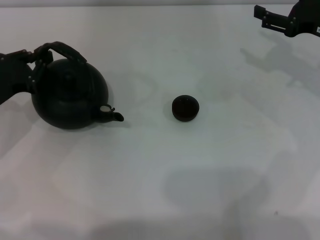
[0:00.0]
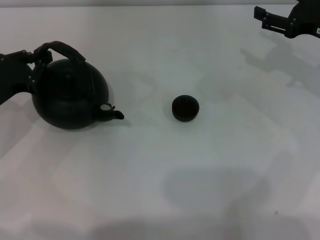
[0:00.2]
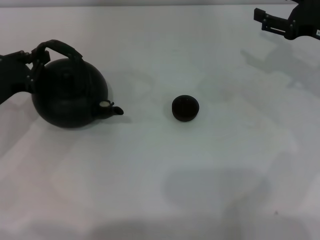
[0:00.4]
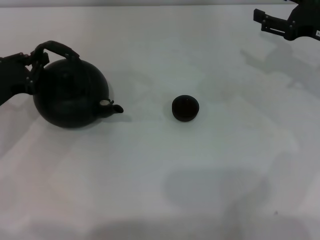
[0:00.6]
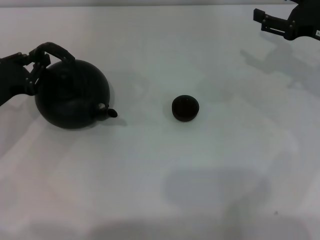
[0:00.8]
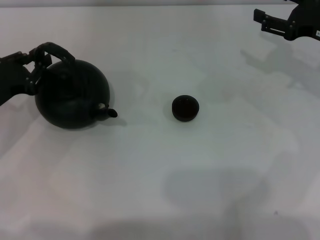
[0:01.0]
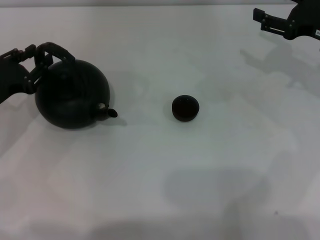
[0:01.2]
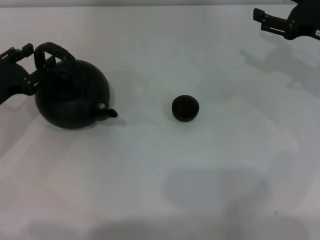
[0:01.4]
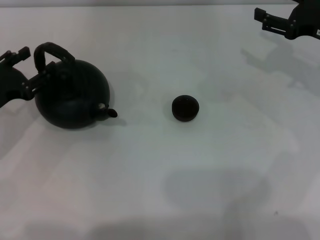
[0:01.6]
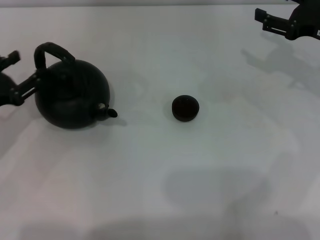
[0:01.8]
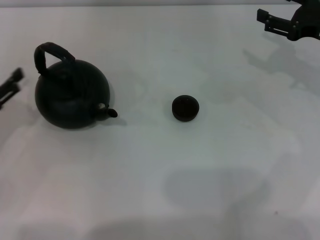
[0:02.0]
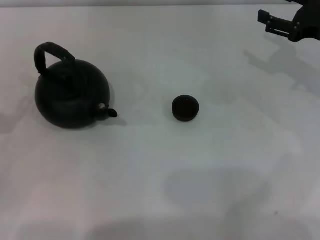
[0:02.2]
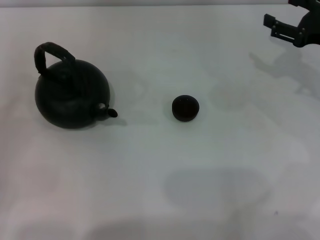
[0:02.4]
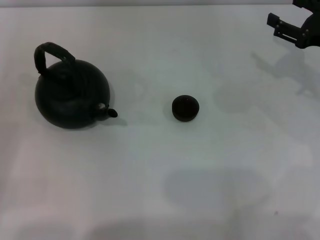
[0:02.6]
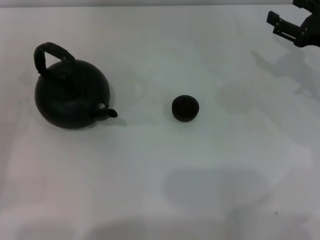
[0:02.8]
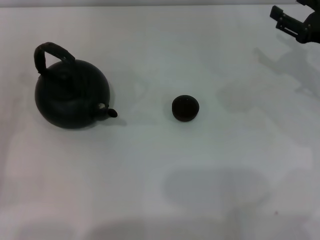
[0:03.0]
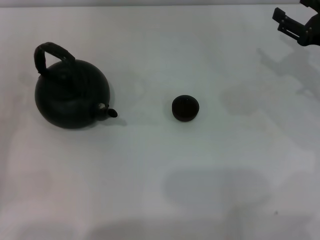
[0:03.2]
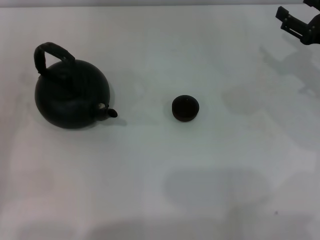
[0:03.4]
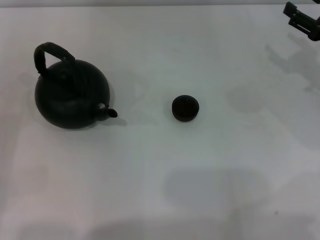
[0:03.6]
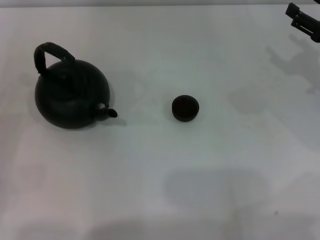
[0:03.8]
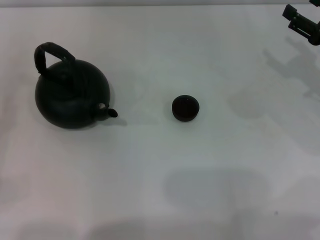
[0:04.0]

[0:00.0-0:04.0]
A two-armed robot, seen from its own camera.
Task of the whole recording: Grasp the handle of the teapot with one hand and pour tea into the teacup.
0:00.0 to 0:01.4: The left gripper opens.
0:01.4 to 0:02.6: The left gripper goes roughly 15 cm backward and to the left, and opens up.
0:02.6 to 0:04.0: The grippers make only small movements.

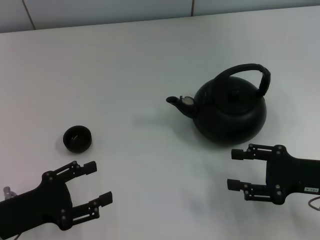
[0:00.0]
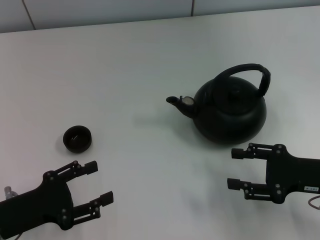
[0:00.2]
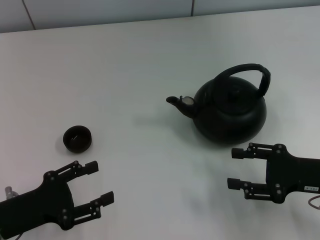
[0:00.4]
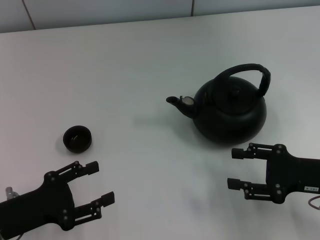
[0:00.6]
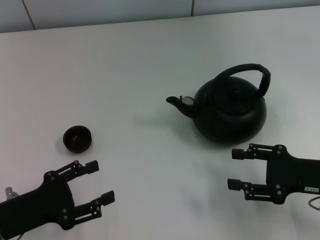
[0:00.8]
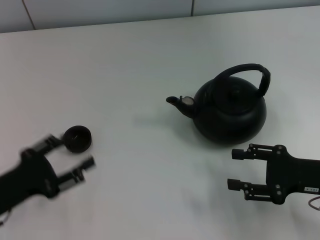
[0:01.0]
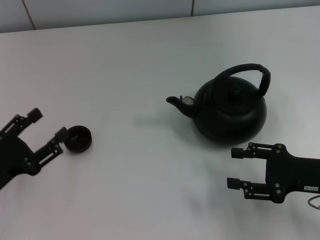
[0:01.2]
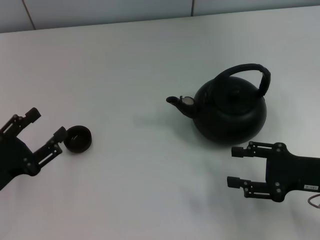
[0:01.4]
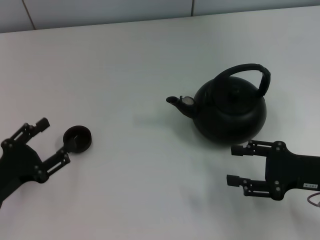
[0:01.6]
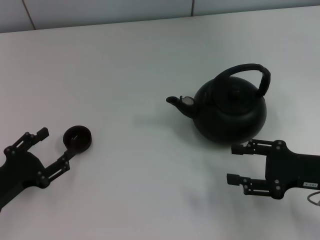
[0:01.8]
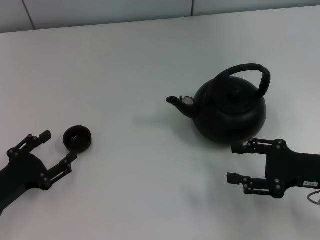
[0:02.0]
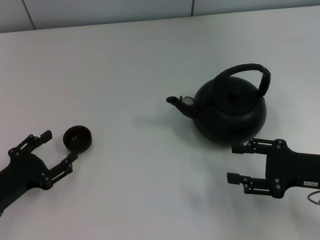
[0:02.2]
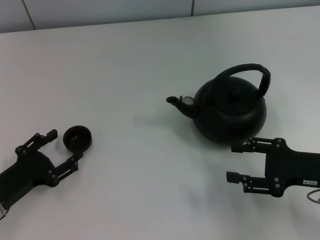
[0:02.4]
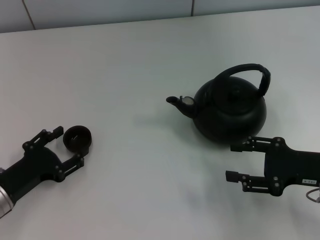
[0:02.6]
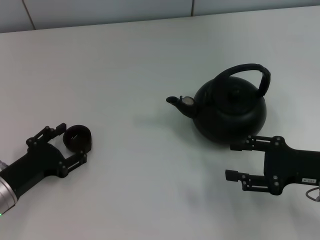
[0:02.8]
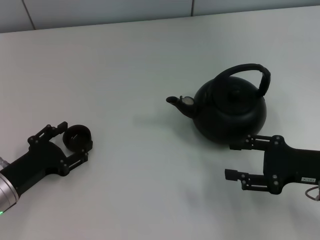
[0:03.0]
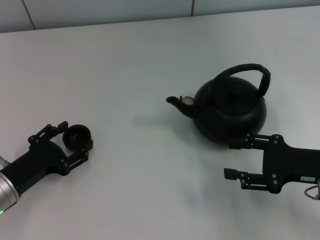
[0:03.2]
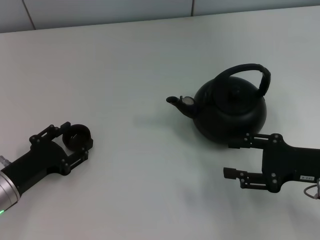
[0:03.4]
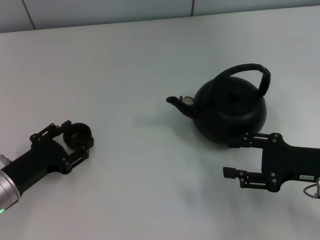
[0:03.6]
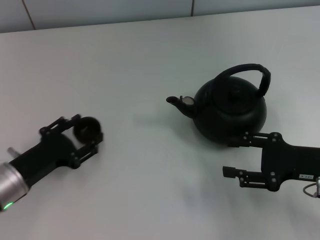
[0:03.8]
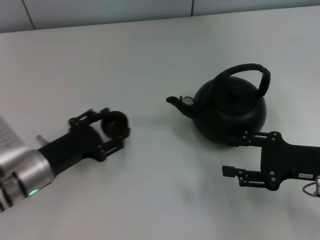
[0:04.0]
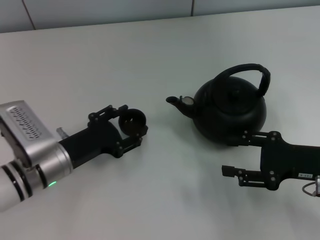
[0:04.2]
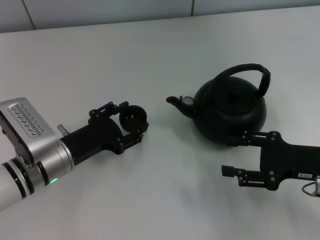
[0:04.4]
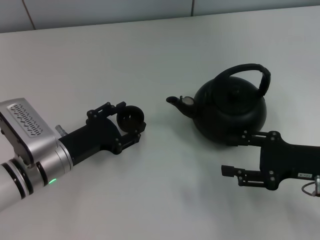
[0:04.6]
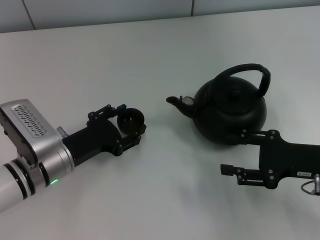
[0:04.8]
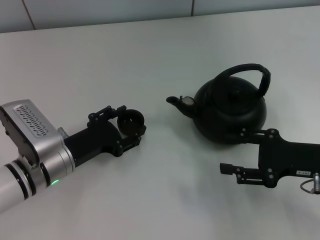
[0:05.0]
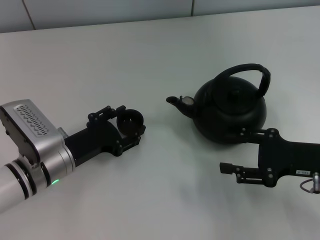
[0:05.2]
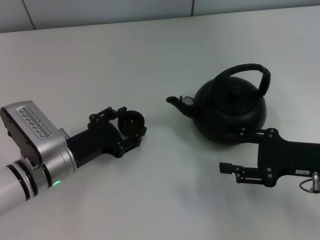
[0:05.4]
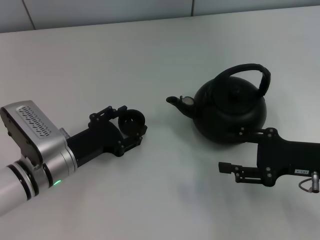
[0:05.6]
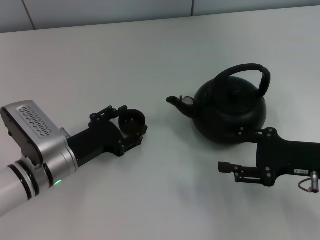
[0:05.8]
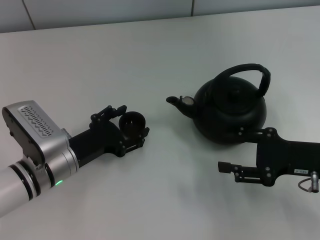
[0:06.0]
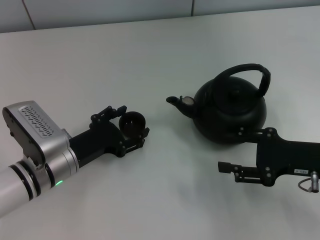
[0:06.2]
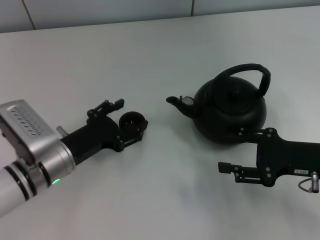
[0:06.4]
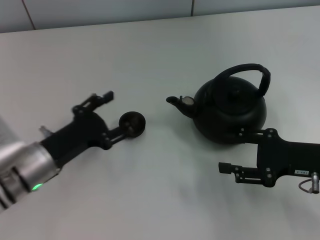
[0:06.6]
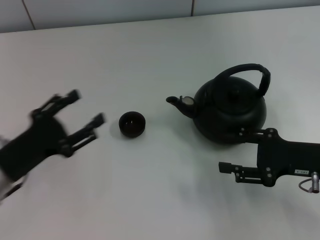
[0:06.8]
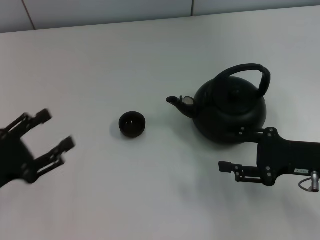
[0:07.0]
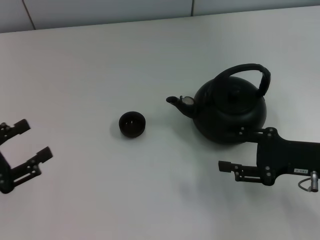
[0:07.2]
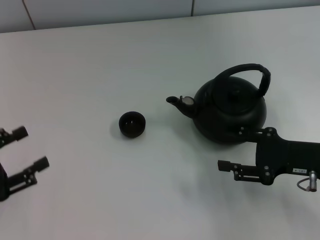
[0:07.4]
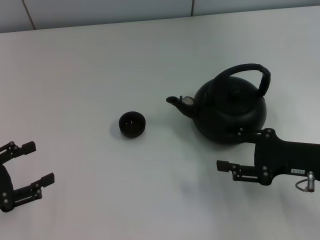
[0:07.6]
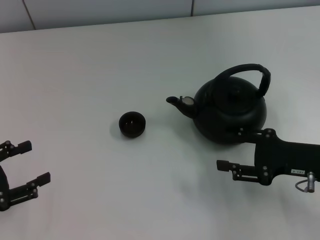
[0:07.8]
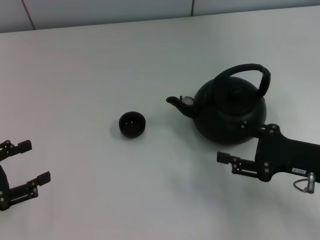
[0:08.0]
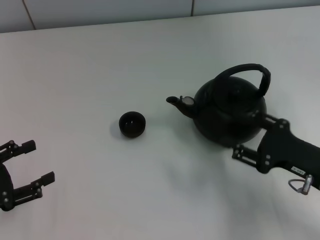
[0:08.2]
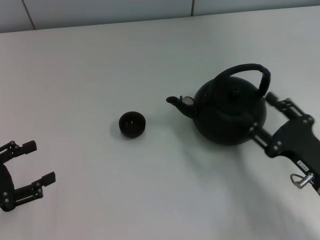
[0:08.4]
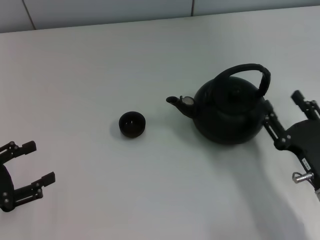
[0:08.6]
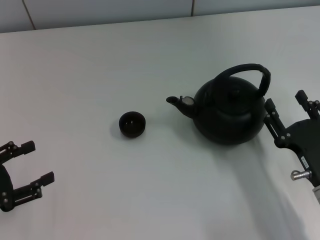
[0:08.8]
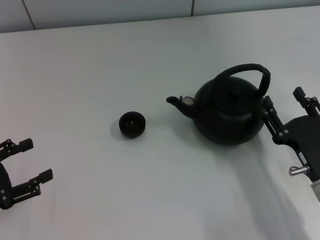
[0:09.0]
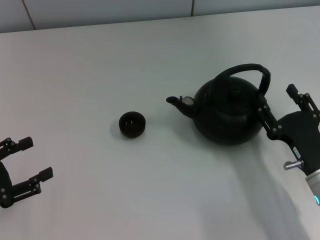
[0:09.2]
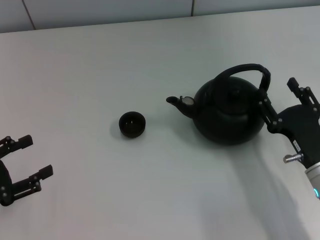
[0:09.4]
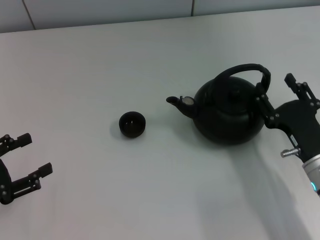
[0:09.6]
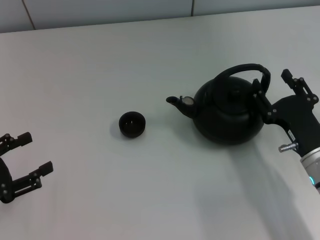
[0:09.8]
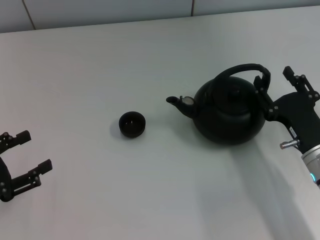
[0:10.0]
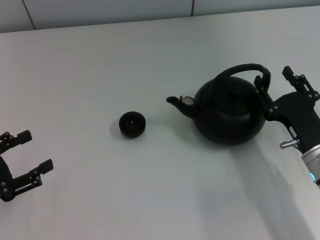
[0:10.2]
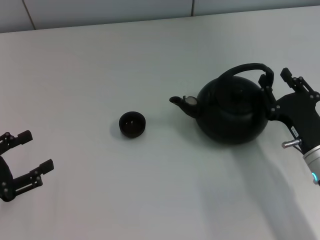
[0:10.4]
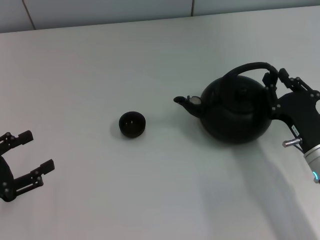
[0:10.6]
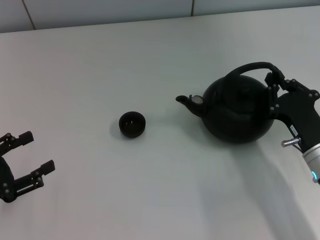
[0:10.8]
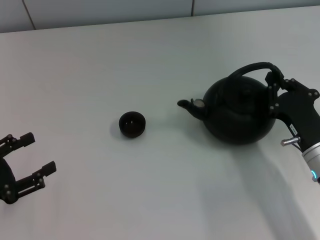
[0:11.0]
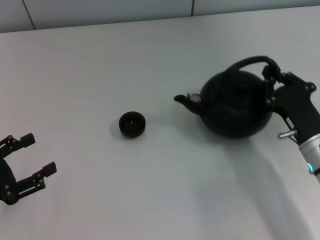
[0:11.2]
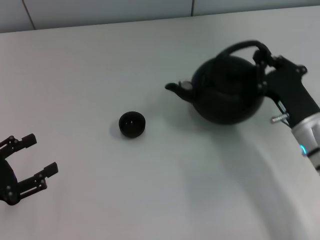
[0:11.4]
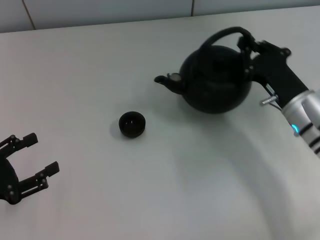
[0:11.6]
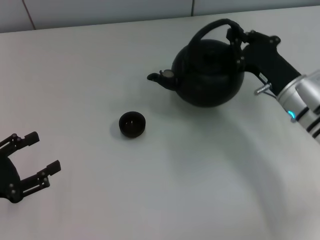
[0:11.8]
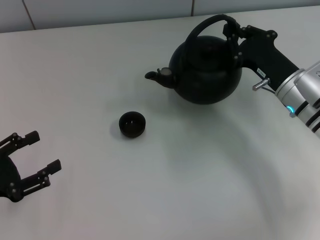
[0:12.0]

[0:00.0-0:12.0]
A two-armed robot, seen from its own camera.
Task of the whole recording: Grasp the handle of the teapot with one hand and pour tea into the teacup.
Step, 0:00.0 to 0:03.8: Pick up the teacup with the left gripper.
Step, 0:04.0 to 0:06.6: Place the teacup in the center of view with the left gripper.
Step, 0:06.8 to 0:11.4: Pick up the teapot with the right gripper.
0:01.6 to 0:03.0: The grippers move only a little.
0:03.0 to 0:04.4: The left gripper travels to the right by about 10 cm, and closes its fingers.
0:04.4 to 0:06.0: The left gripper opens.
0:06.0 to 0:07.6: The left gripper is displaced to the left and backward by about 20 cm, and opens.
0:07.6 to 0:09.0: The right gripper moves backward, some 5 cm.
0:09.0 to 0:10.4: The grippers stay close to where they were, moving slightly.
0:10.4 to 0:12.0: The right gripper shifts roughly 10 cm forward, and closes up.

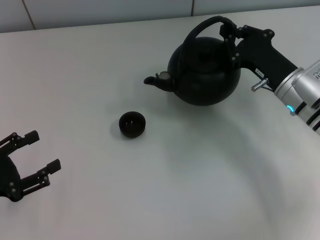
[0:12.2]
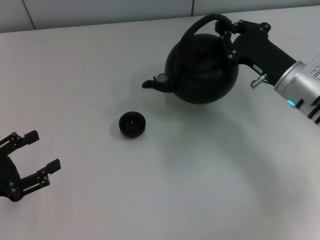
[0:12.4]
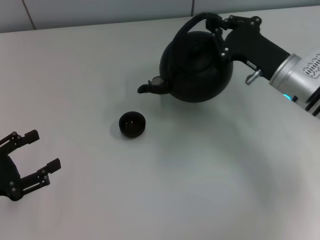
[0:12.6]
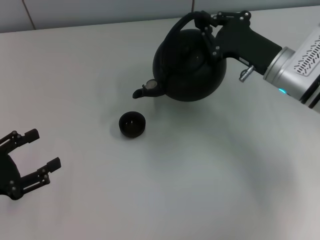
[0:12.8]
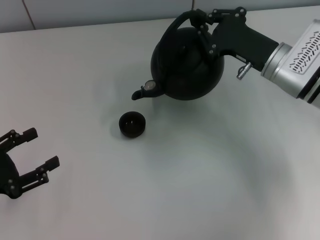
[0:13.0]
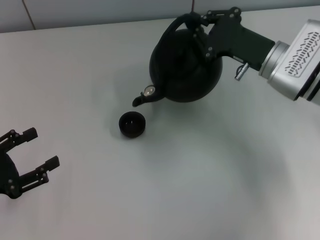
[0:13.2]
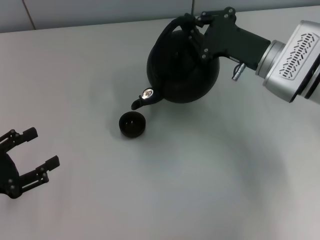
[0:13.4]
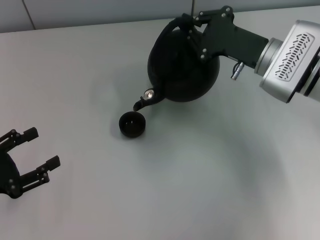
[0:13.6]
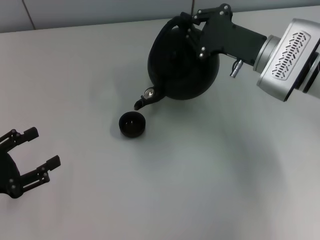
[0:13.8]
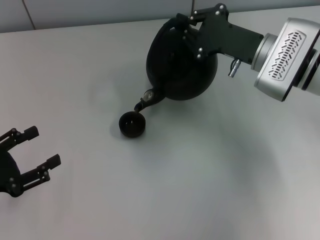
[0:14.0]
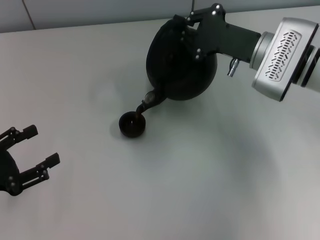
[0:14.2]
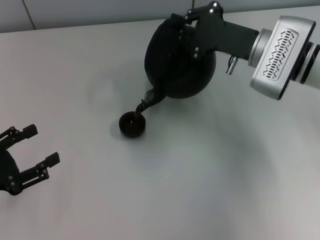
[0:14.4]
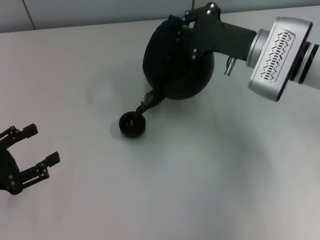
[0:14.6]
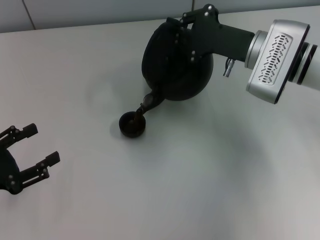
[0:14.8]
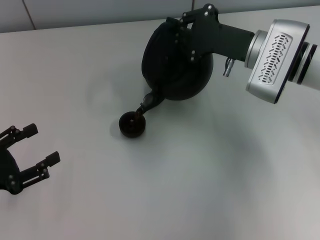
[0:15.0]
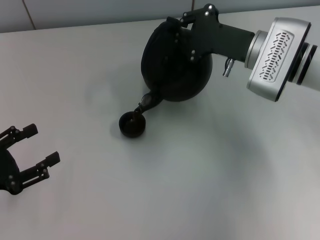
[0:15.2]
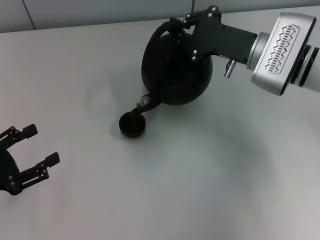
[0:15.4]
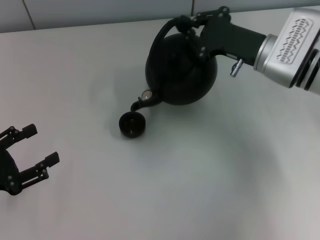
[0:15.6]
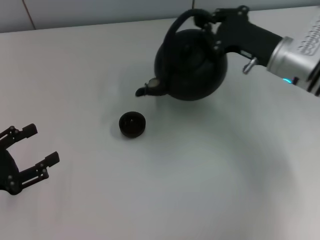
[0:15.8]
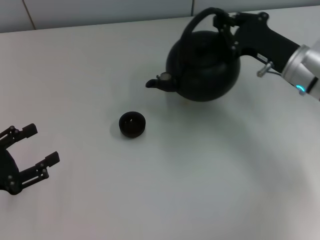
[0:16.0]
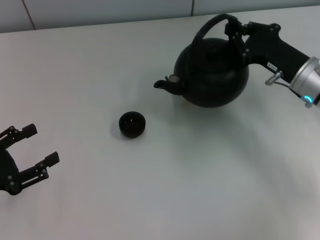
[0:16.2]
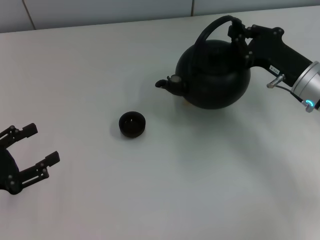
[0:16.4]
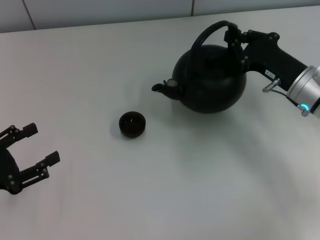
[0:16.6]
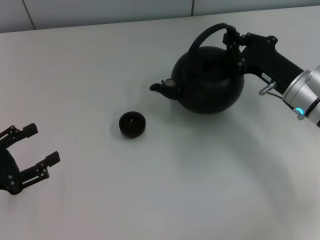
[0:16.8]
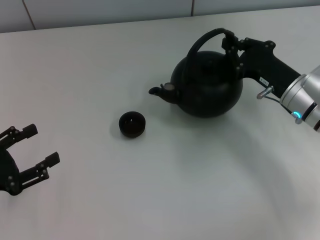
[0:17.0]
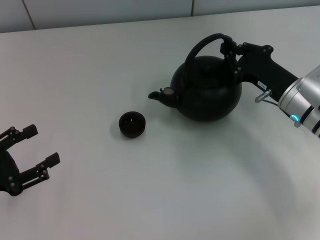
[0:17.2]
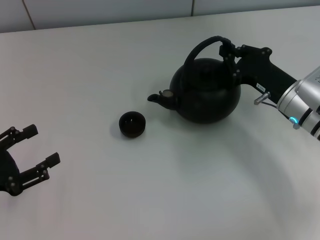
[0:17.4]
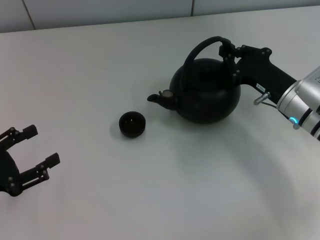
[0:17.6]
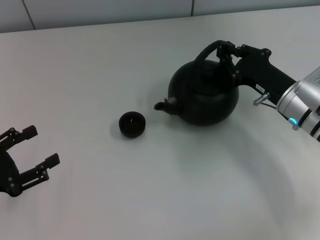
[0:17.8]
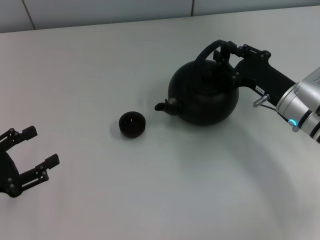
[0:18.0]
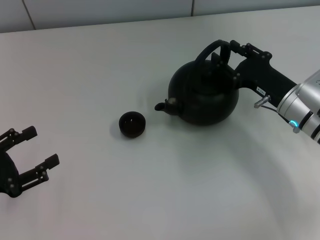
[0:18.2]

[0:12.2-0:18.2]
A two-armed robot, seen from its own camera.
Task of the whole recording: Grasp the handle of the teapot with one hand and pour tea into the teacup.
0:12.2 to 0:13.8: The right gripper ends up about 5 cm from where it was.
0:13.8 to 0:15.2: The grippers make only small movements.
0:15.2 to 0:16.6: The right gripper goes approximately 10 cm to the right and backward.
0:16.6 to 0:18.2: The right gripper opens up.
